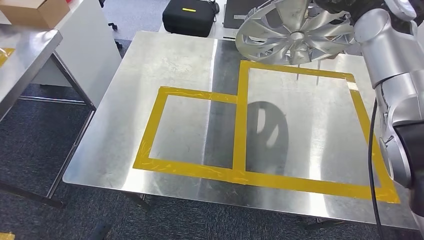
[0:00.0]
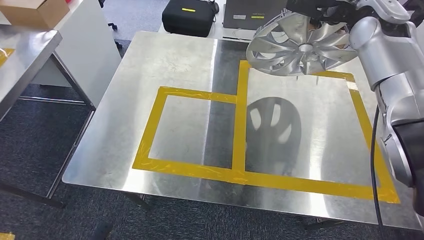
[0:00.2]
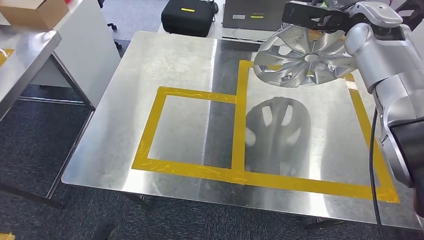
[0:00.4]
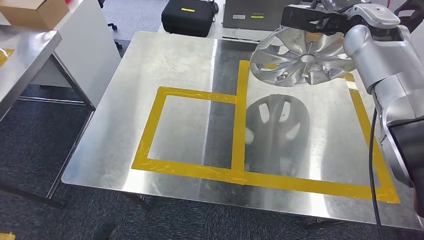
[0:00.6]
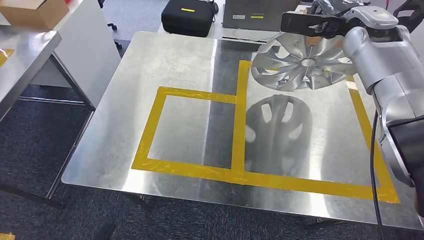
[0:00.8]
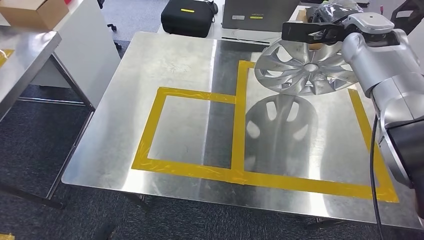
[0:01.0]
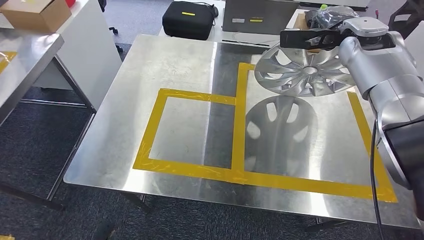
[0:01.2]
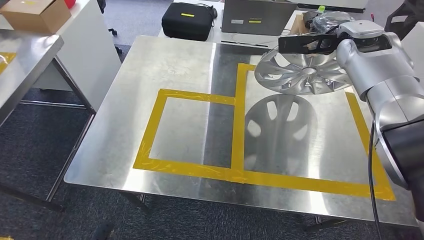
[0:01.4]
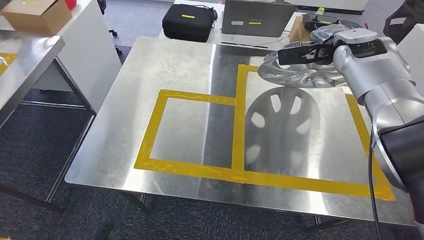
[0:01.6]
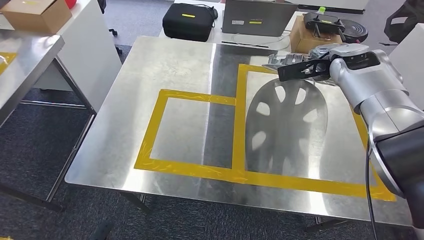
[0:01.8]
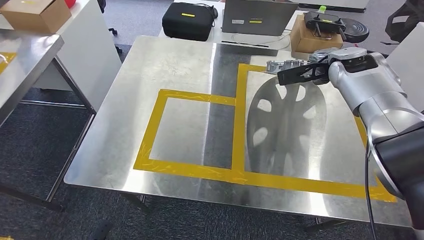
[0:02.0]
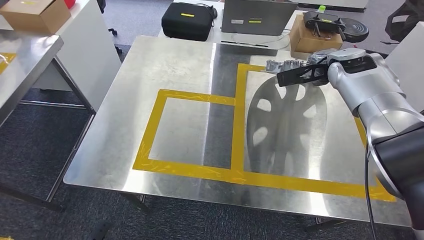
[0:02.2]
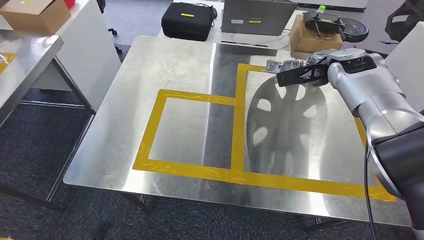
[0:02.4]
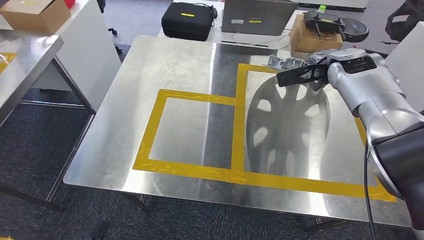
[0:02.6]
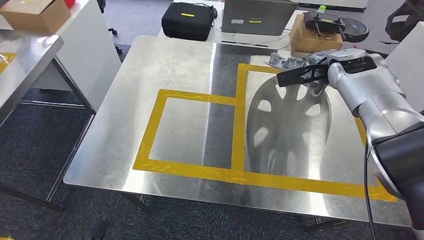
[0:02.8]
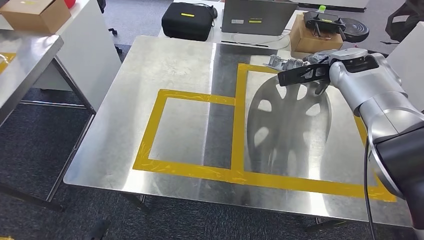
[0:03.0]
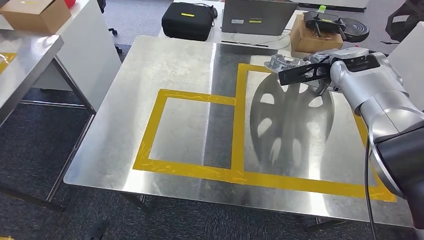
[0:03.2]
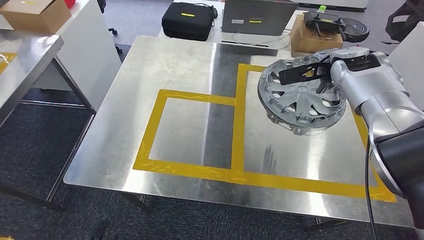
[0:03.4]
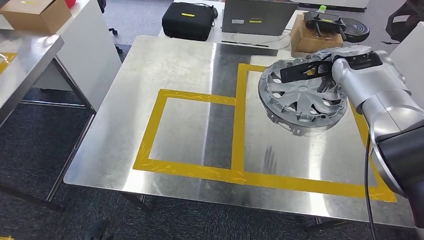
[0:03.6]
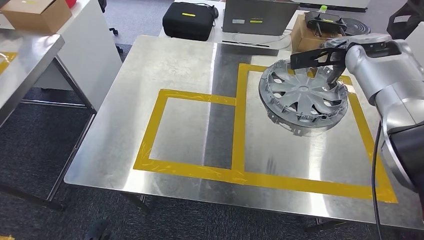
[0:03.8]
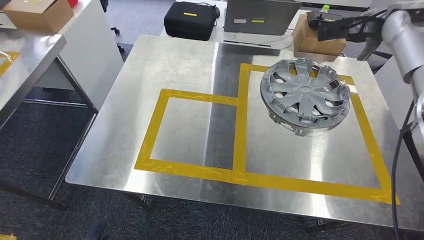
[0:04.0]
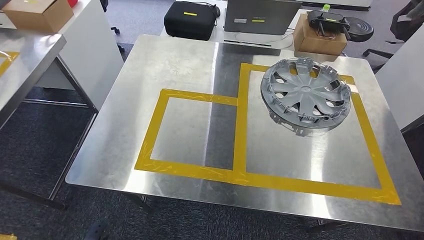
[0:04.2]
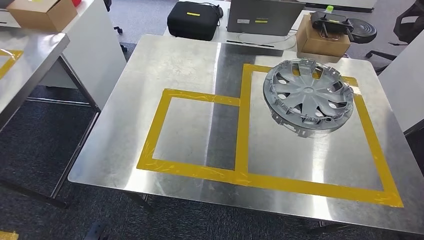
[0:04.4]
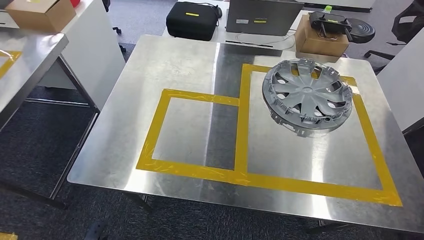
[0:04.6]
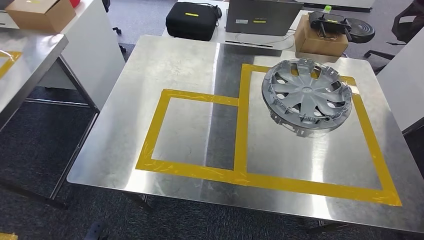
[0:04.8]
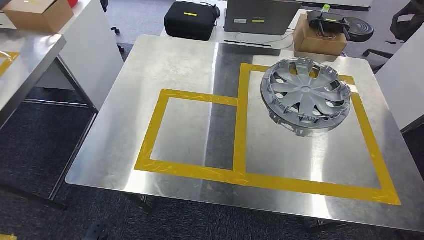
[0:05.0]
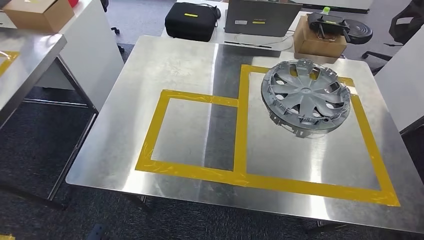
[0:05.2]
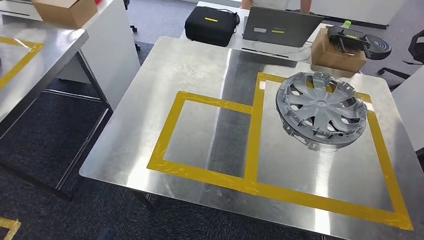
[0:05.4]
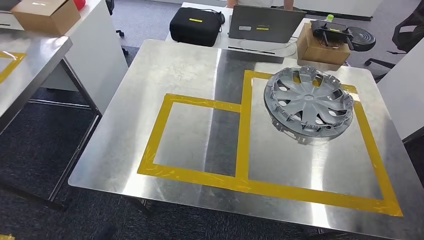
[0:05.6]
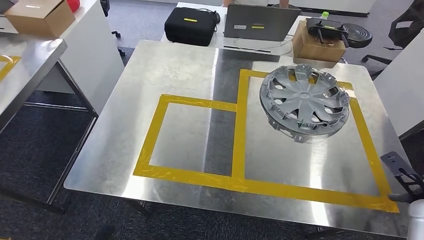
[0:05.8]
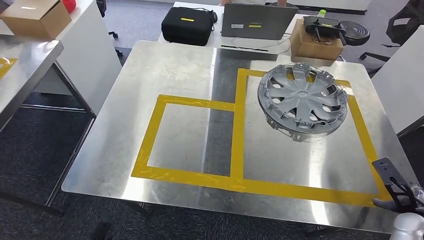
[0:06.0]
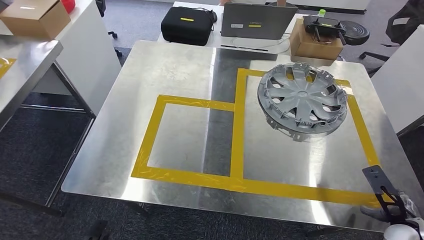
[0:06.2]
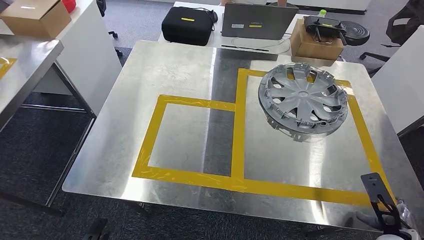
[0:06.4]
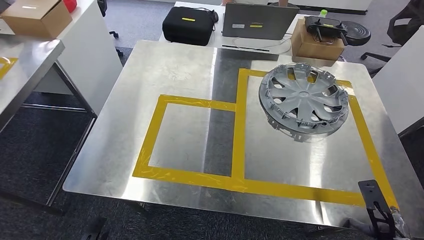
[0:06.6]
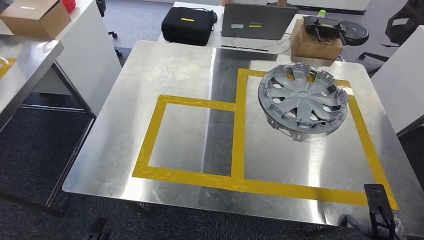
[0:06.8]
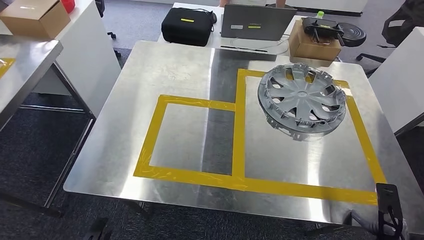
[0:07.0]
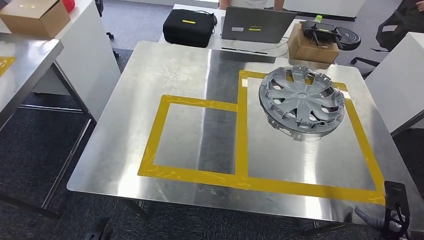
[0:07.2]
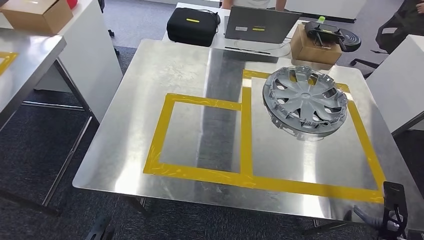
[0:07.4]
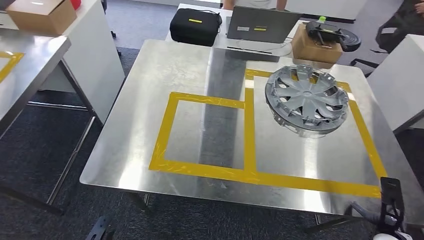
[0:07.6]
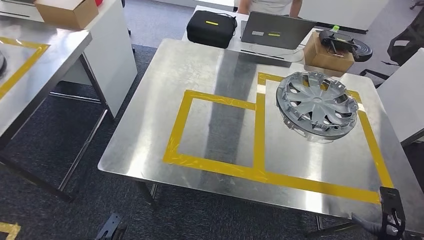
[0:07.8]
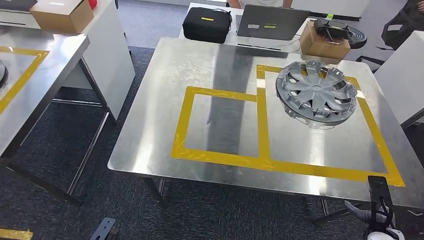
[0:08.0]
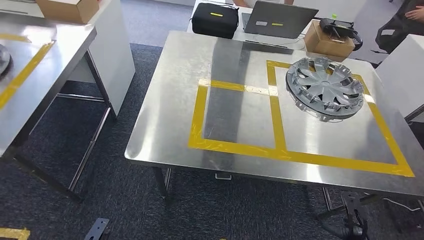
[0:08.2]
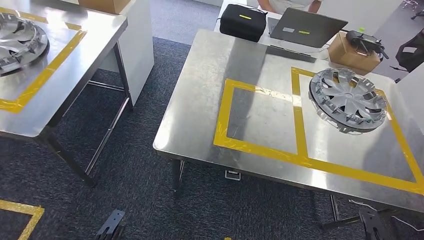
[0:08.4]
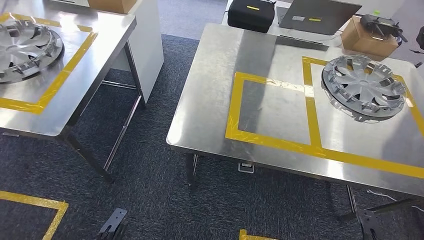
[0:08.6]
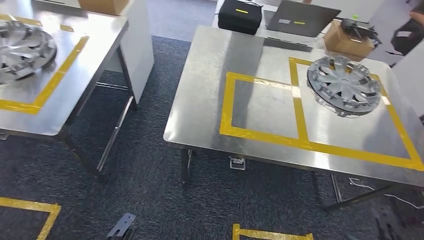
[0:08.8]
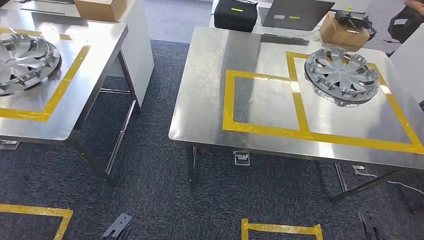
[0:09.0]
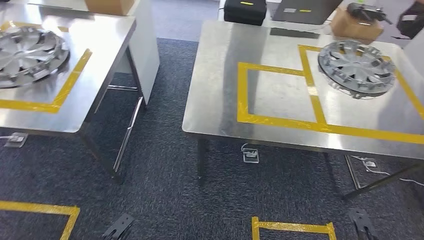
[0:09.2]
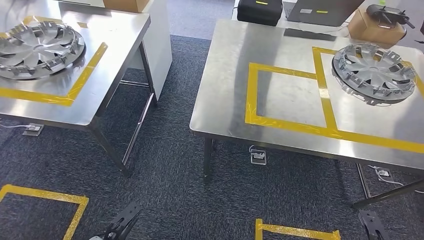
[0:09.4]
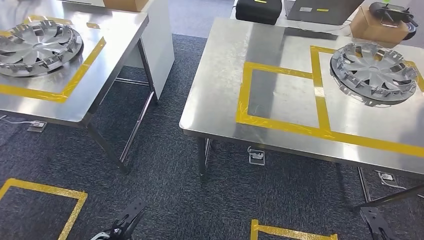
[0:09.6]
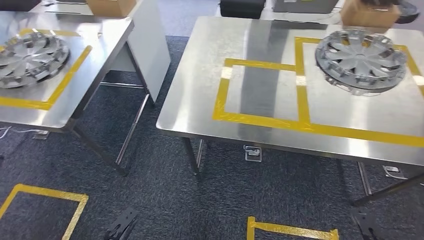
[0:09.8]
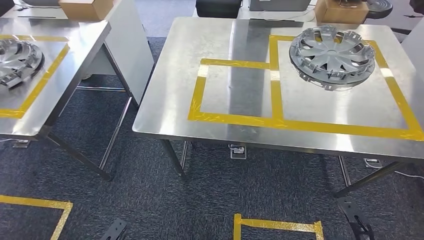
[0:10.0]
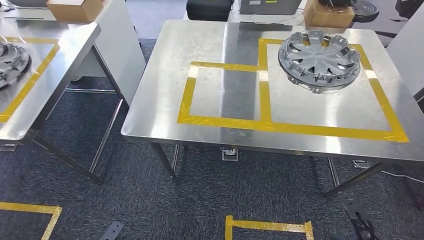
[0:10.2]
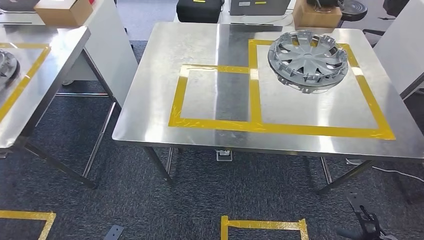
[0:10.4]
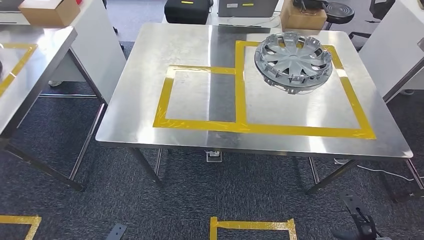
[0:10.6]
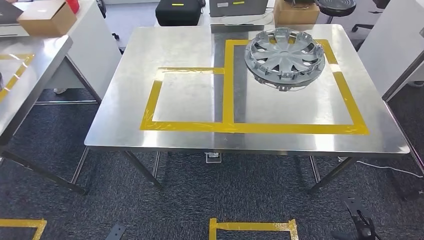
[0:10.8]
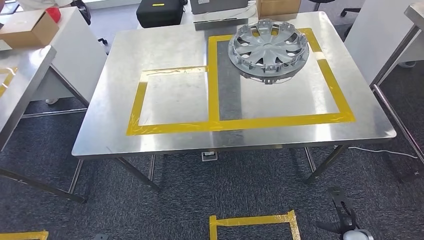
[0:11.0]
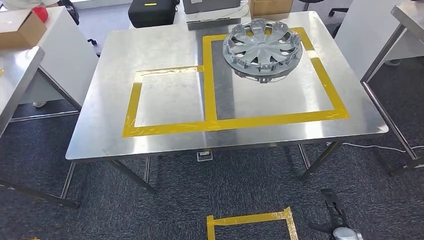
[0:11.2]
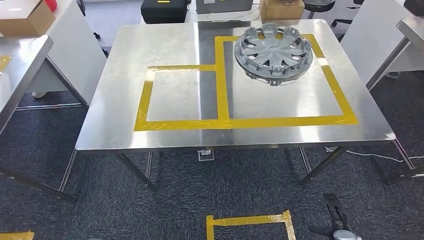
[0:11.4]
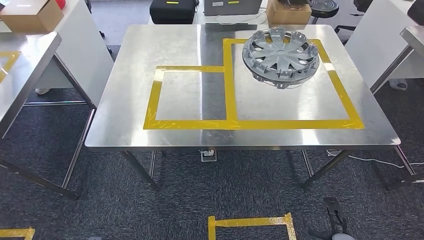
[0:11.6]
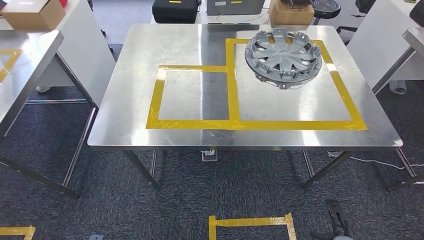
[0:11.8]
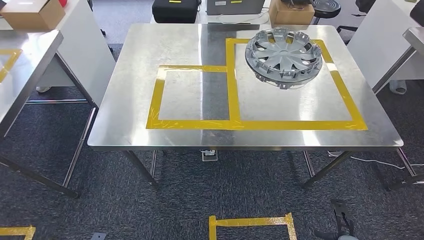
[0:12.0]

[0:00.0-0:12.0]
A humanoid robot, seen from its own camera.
Step, 0:00.0 to 0:07.4: Insert the small component into the corresponding slot on the workbench.
0:01.6 to 0:03.0: There are only small adjustments of the hands.

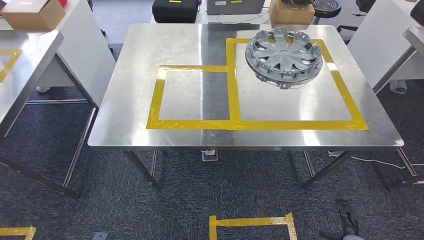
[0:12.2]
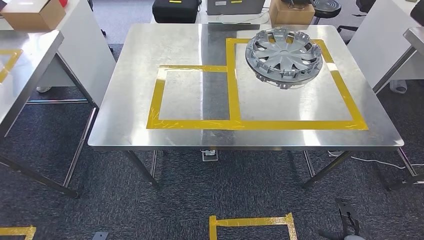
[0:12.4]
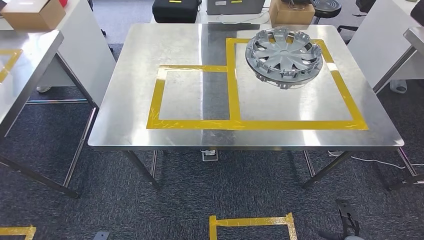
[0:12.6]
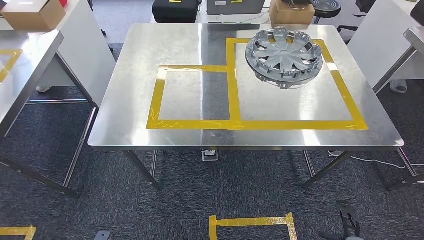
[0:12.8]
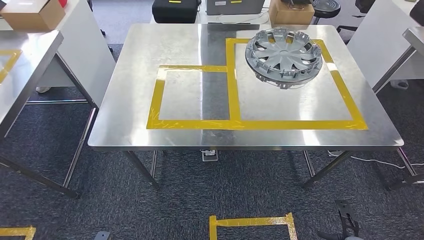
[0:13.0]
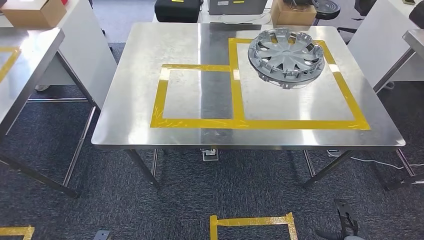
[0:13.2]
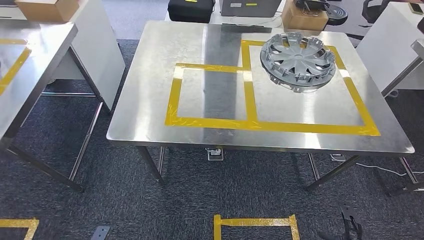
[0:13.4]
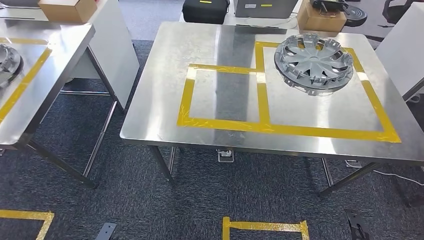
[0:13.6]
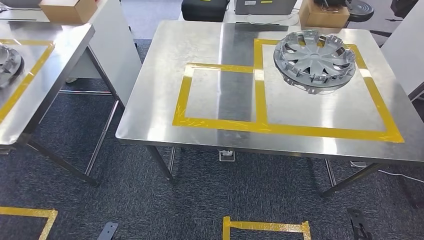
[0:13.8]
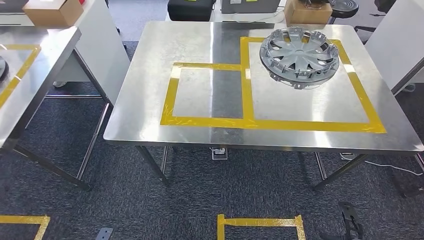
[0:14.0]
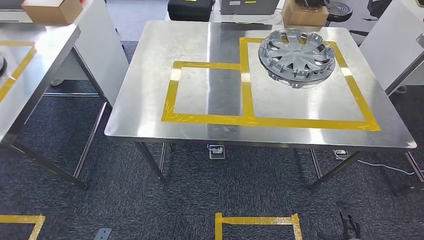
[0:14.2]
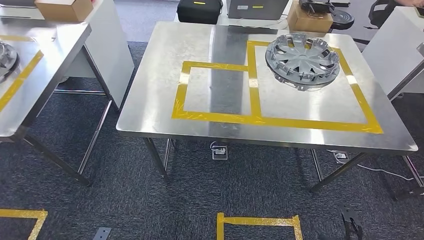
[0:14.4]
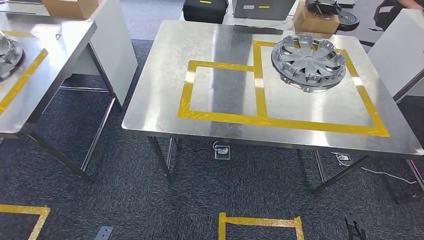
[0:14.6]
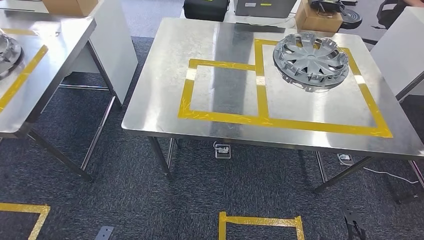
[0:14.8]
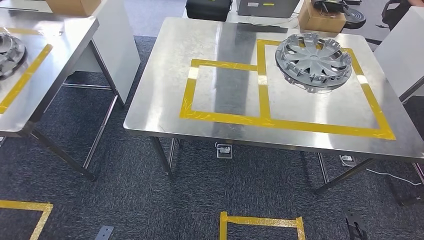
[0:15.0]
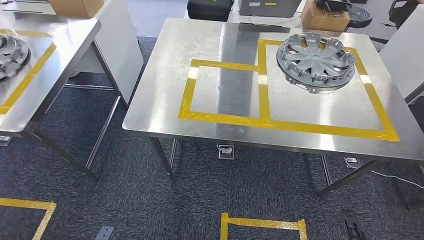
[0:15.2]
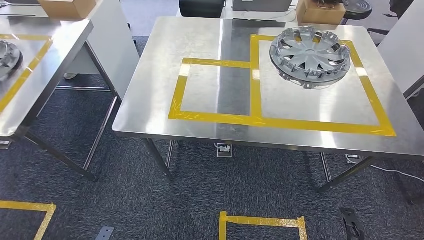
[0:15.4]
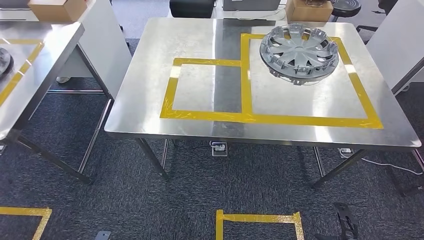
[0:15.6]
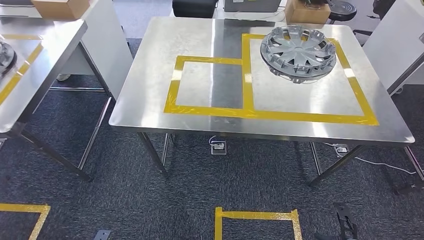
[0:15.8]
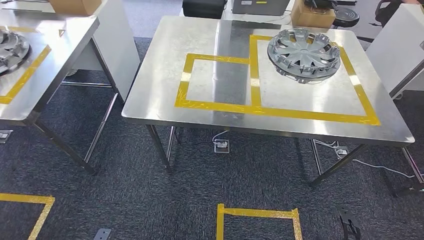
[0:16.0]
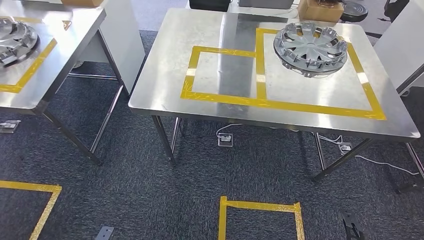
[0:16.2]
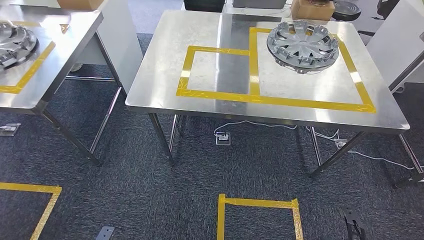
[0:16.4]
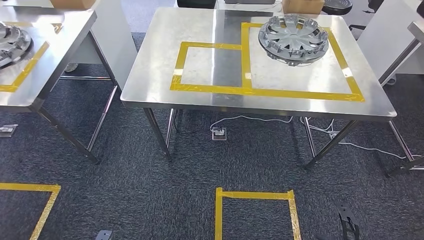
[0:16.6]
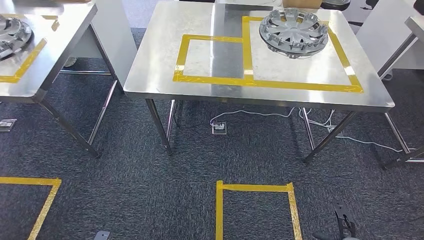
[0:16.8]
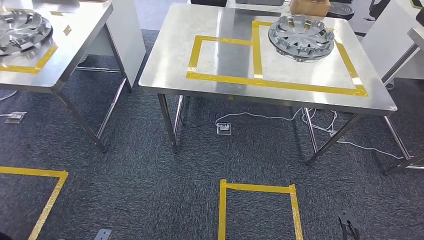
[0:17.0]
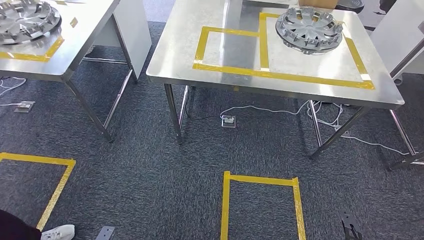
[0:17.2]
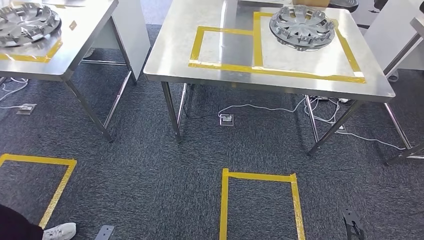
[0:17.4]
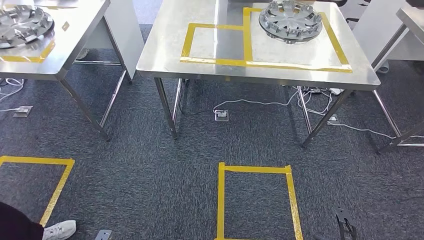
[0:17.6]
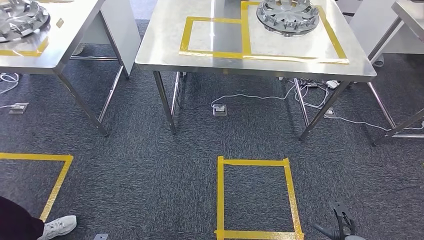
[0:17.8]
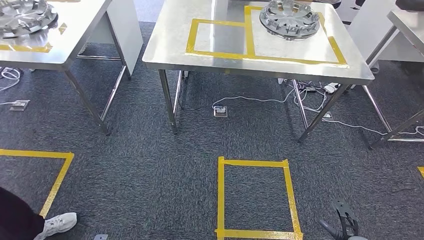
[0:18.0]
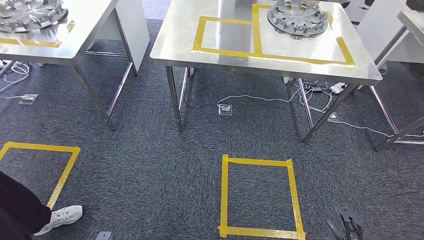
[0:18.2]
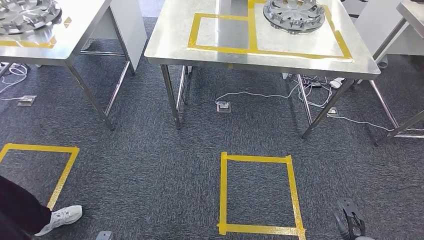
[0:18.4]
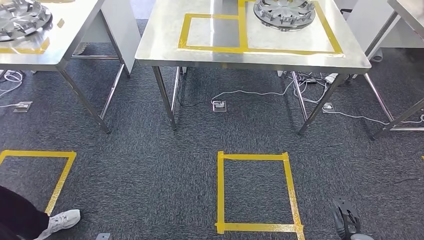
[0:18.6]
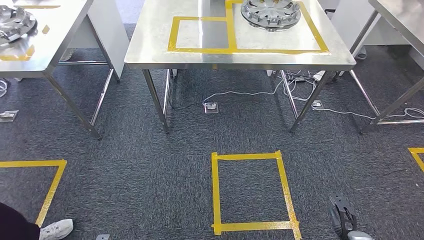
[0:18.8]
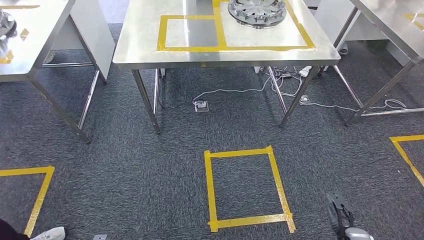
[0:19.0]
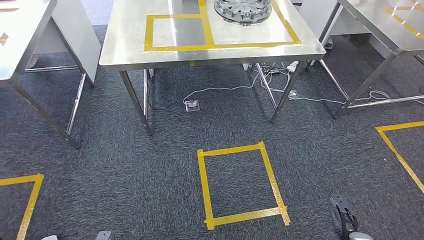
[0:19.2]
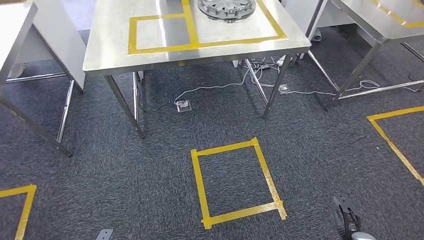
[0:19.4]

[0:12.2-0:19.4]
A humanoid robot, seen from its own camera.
0:13.6 to 0:15.0: Both hands stay about where they are.
